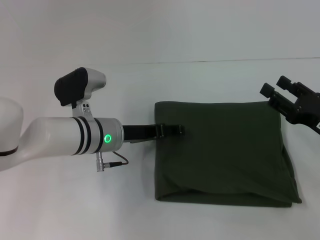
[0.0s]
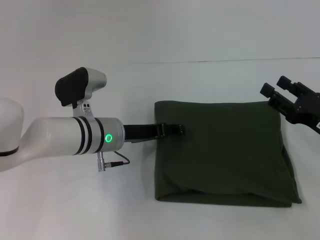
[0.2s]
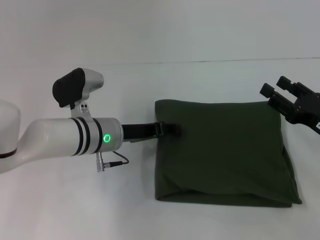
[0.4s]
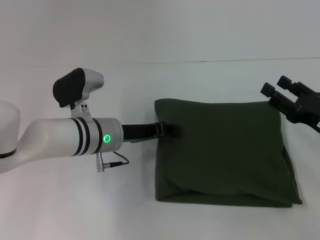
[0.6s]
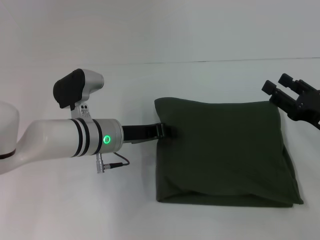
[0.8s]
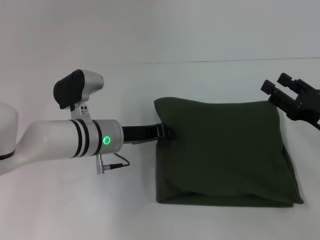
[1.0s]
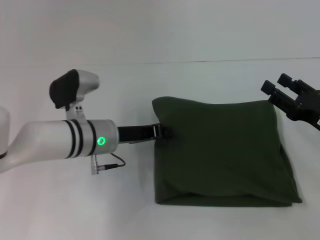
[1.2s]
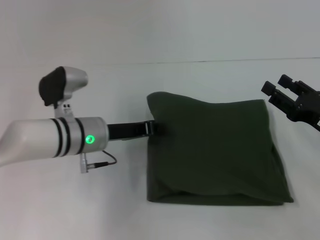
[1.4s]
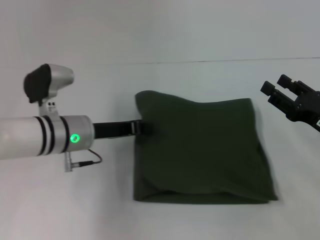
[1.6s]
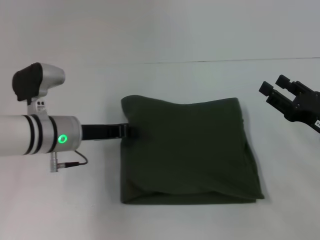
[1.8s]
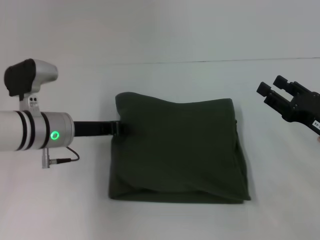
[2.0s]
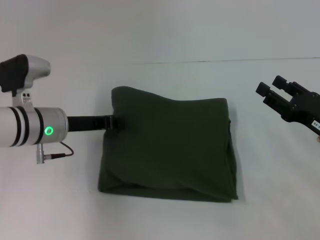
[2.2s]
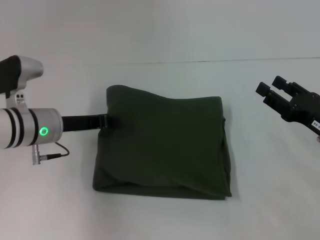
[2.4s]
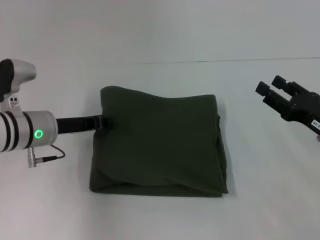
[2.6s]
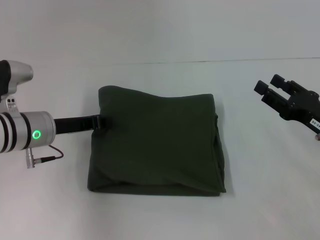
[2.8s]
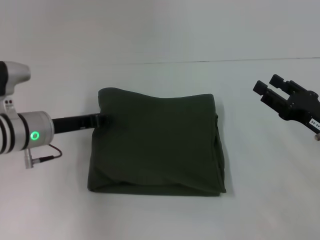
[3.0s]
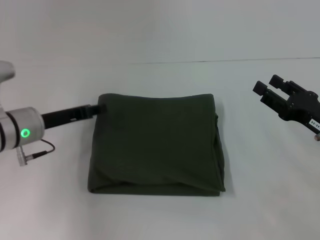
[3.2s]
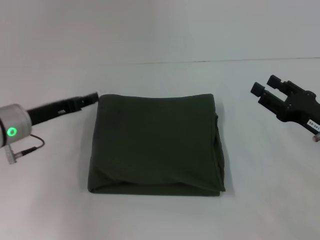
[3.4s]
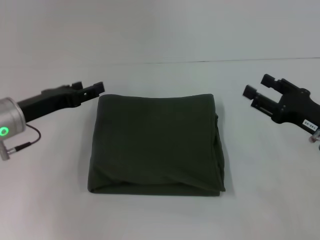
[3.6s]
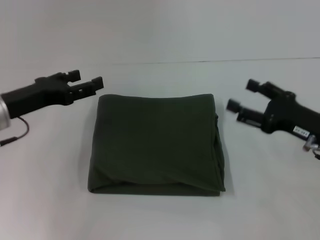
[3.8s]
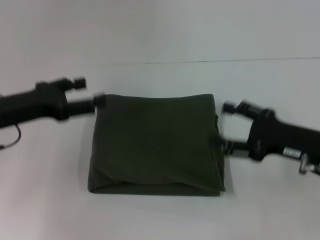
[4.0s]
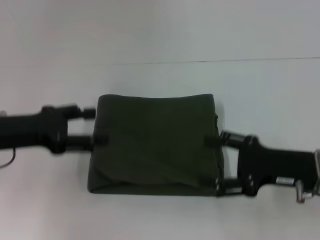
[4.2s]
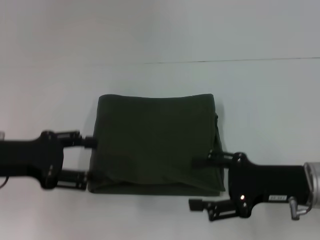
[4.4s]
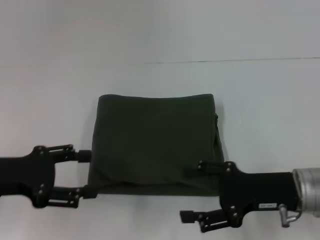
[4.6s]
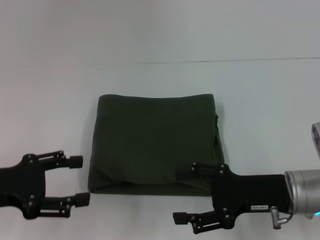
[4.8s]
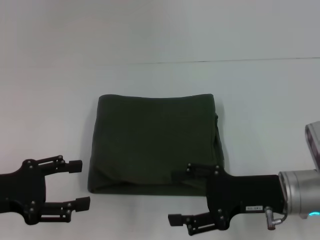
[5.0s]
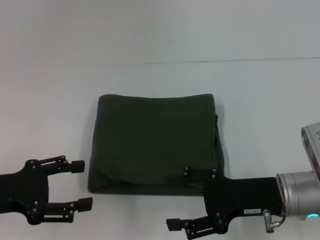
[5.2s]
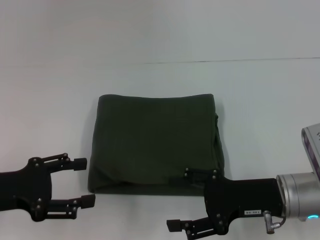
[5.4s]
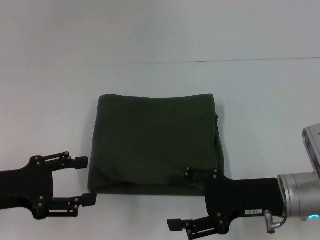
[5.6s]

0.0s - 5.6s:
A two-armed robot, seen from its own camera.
0.0s - 1.4s: The left gripper closes its fingers.
1.4s - 2.8s: The left gripper moves to the left, about 10 cm.
2.8s - 4.2s: The right gripper shifts by roughly 5 cm. Meanwhile the left gripper heads upward, backward and to the left, covering approximately 10 cm, and opens.
4.2s - 5.6s: The left gripper heads backward, covering roughly 5 cm.

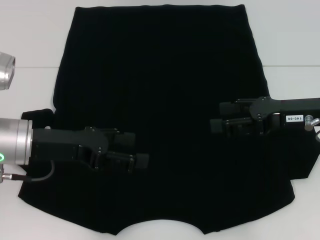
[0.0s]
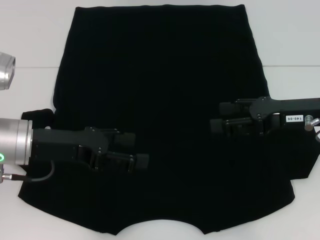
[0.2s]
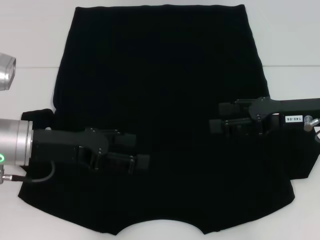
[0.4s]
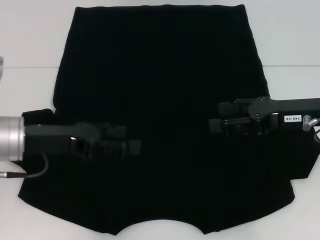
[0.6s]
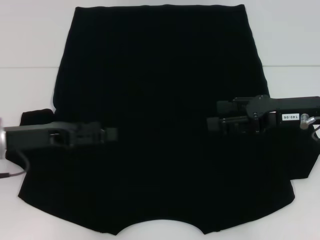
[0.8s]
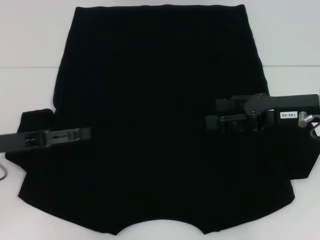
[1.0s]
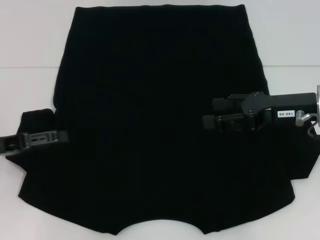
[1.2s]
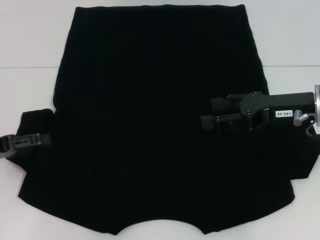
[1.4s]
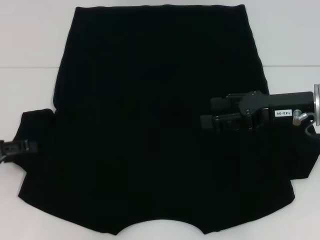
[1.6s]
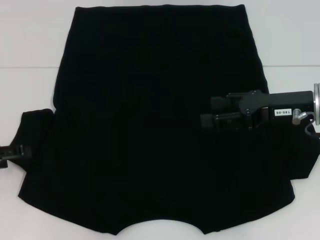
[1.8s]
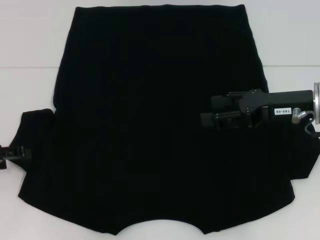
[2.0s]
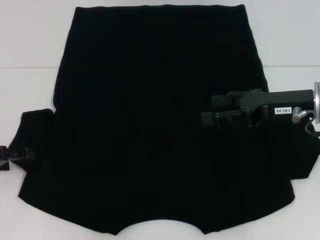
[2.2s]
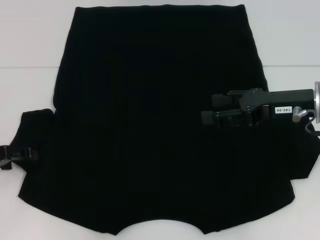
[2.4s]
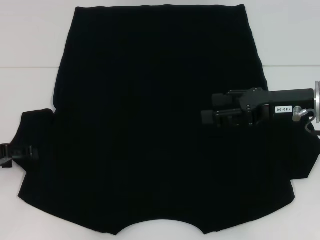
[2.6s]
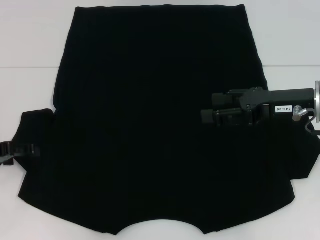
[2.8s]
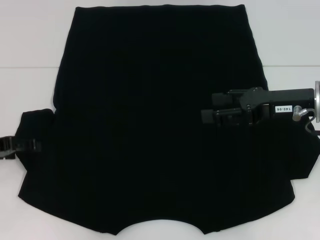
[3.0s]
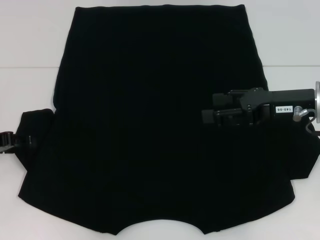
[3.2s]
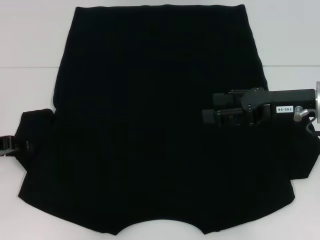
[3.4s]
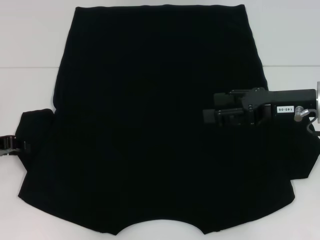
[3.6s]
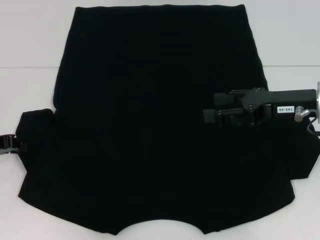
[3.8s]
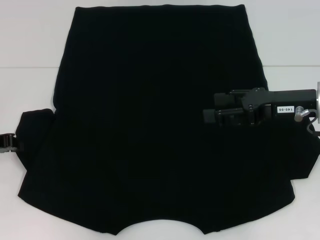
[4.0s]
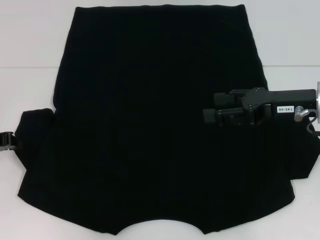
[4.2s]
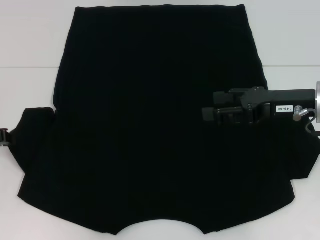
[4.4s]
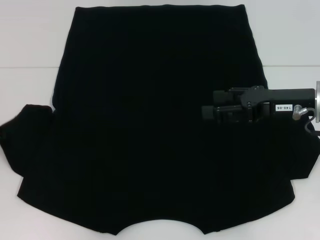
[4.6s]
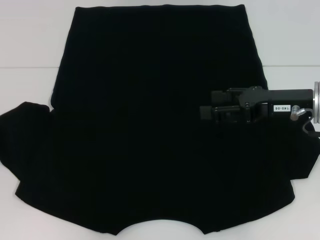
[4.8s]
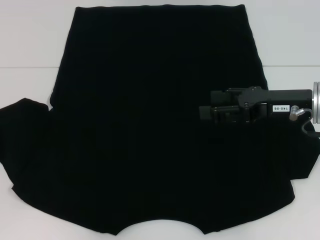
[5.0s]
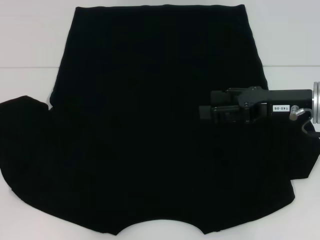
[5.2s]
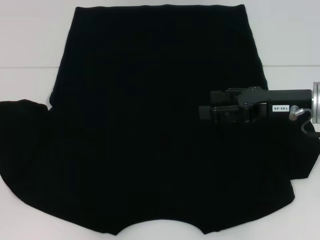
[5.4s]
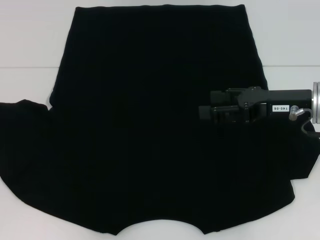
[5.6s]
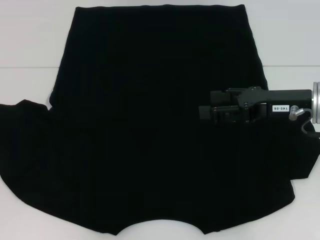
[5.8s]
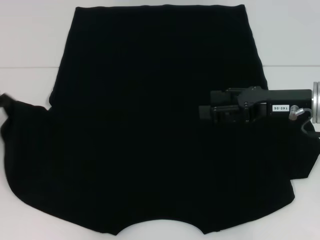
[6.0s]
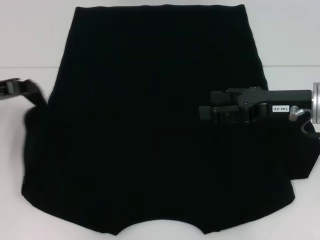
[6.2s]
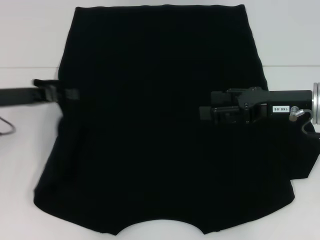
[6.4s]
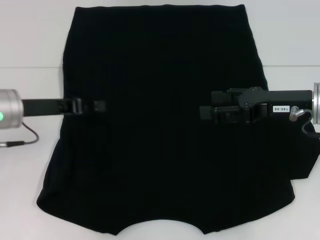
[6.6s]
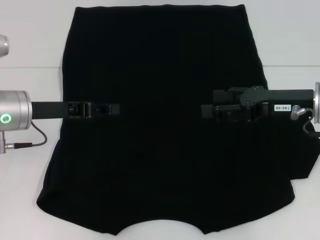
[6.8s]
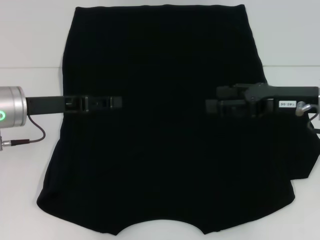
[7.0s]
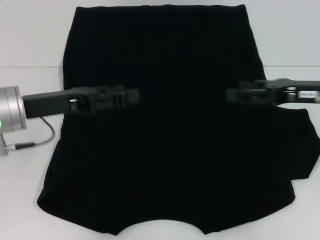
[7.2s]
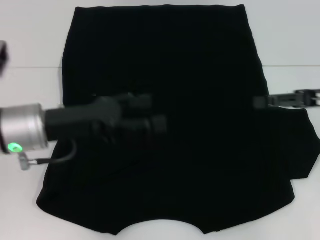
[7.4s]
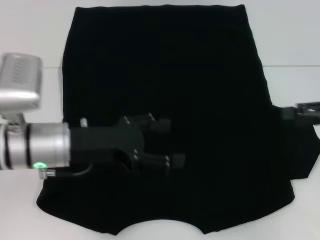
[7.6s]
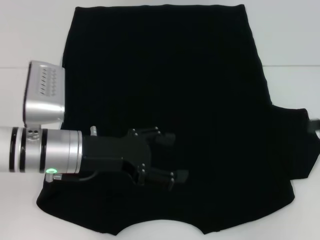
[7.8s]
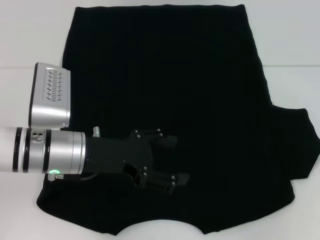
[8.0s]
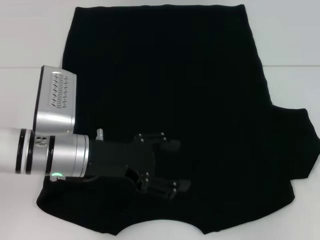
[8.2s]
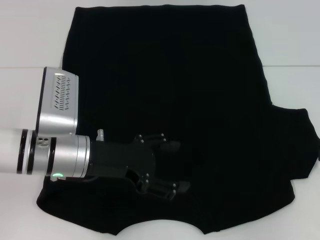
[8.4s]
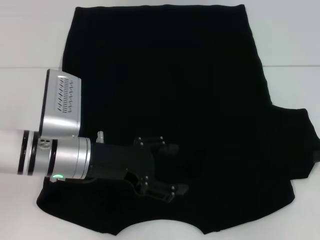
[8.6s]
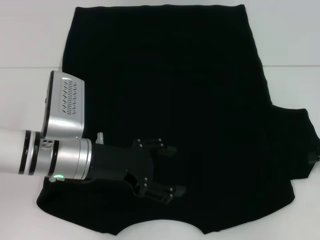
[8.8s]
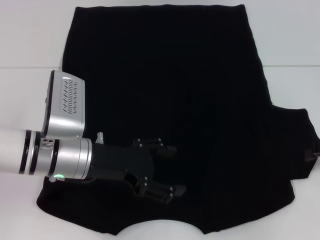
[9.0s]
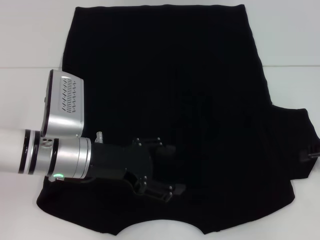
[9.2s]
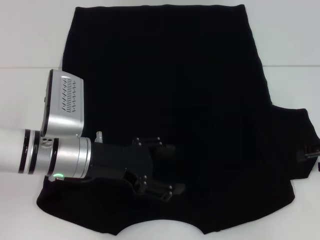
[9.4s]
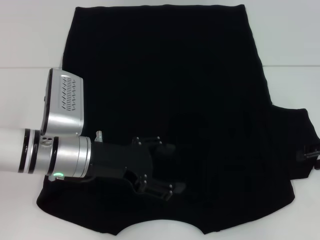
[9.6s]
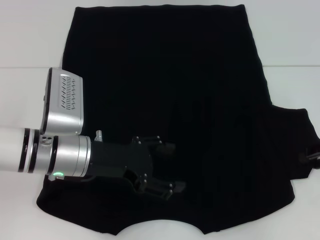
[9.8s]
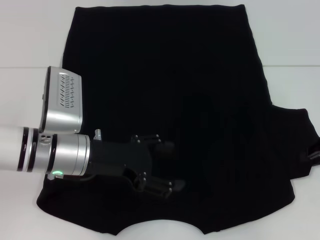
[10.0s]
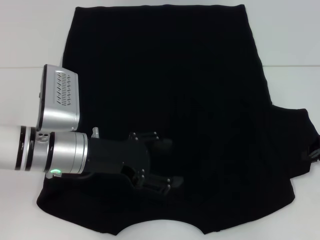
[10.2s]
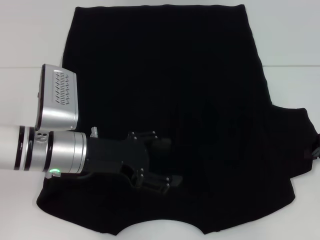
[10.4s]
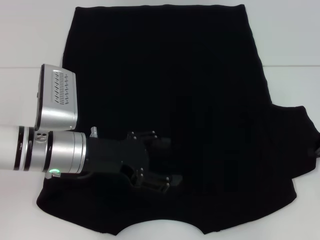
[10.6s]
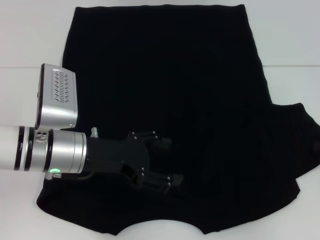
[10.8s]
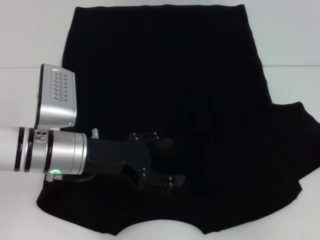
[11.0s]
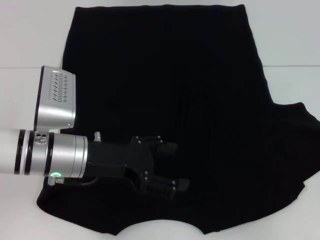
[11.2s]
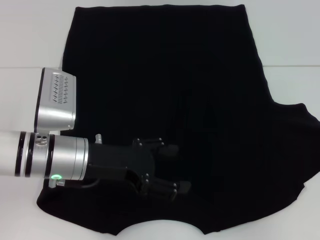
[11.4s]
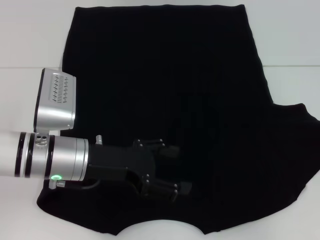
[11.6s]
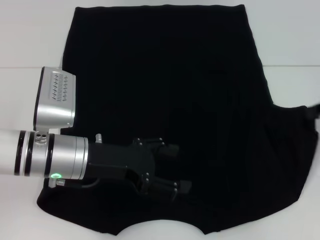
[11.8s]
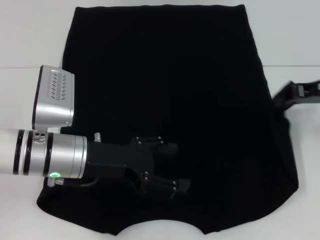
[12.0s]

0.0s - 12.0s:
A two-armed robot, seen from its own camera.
Step, 0.0s - 7.0s: Fold the bottom left sleeve with your left hand.
0.0s - 1.6s: The left gripper is displaced to the left by about 15 cm.
1.6s - 3.0s: There are only small adjustments of the grippers.
3.0s - 4.4s: The left gripper closes its fingers.
4.4s - 6.0s: The grippers move only a little.
6.0s - 7.6s: The left gripper moves to the right, approximately 15 cm, and opens up. The right gripper heads to the right, covering roughly 10 cm.
7.6s - 9.0s: The right gripper moves approximately 5 cm.
9.0s - 10.4s: The right gripper closes its fingers.
10.4s - 12.0s: The right gripper goes some 10 cm upward and to the left.

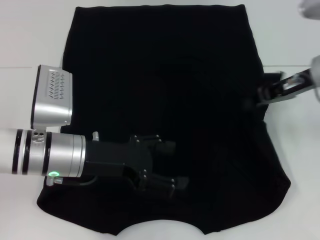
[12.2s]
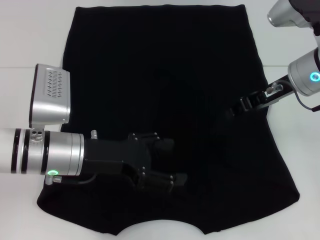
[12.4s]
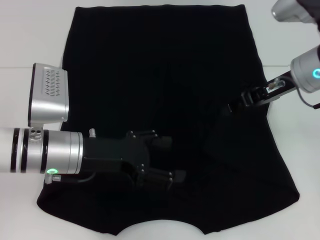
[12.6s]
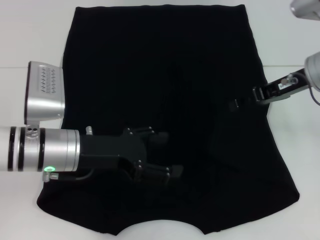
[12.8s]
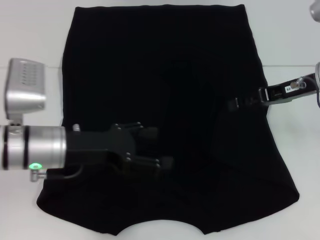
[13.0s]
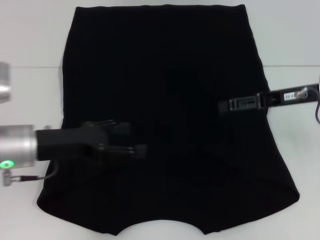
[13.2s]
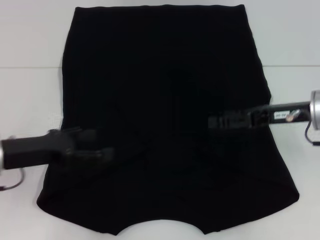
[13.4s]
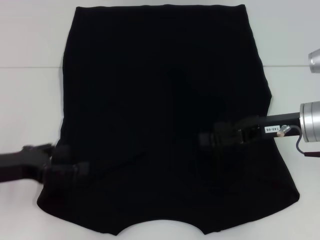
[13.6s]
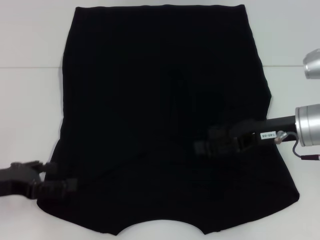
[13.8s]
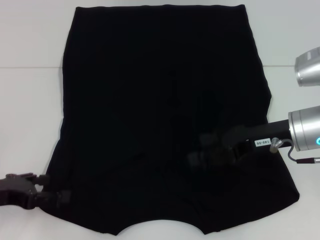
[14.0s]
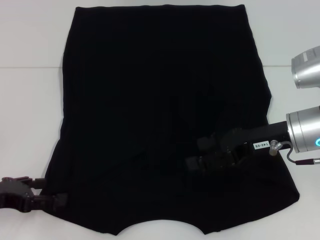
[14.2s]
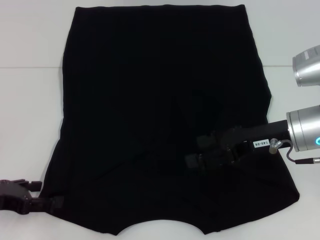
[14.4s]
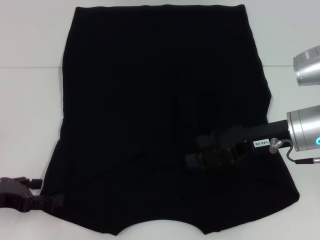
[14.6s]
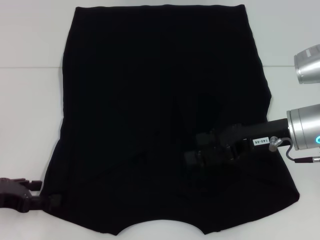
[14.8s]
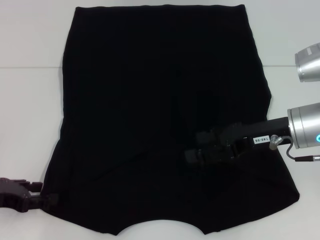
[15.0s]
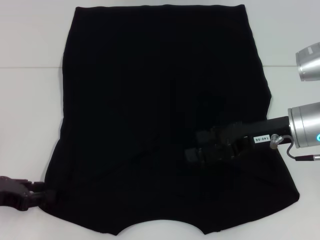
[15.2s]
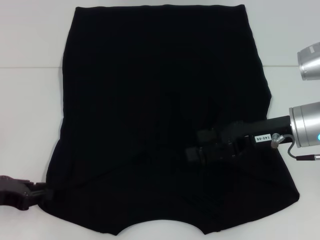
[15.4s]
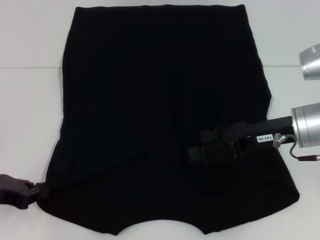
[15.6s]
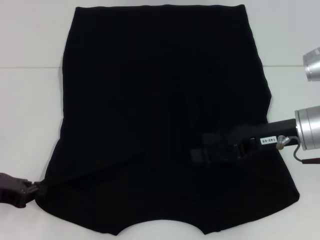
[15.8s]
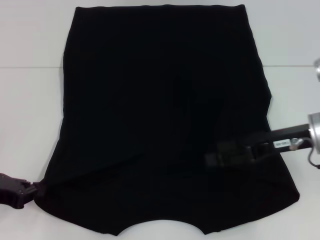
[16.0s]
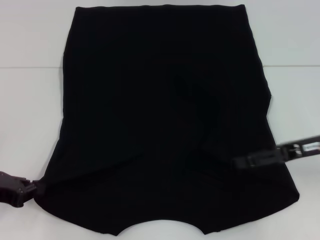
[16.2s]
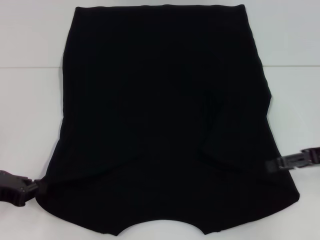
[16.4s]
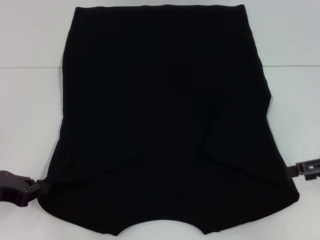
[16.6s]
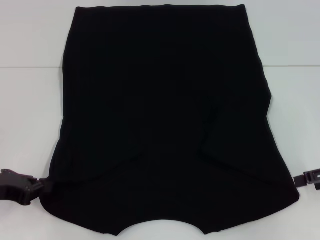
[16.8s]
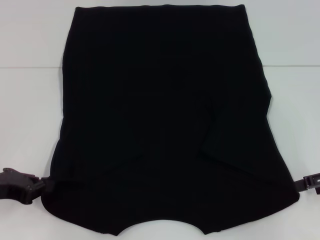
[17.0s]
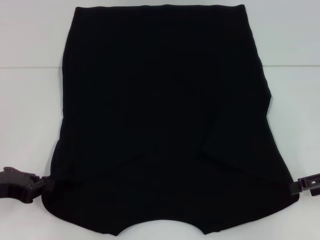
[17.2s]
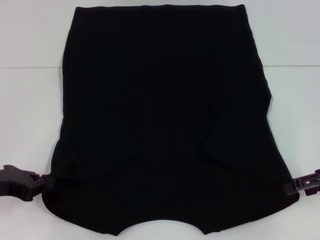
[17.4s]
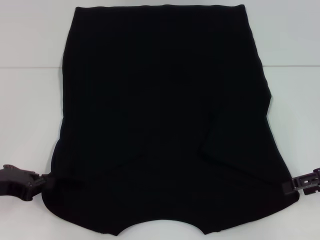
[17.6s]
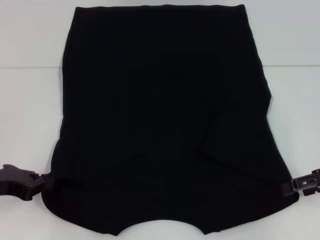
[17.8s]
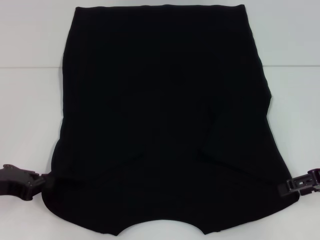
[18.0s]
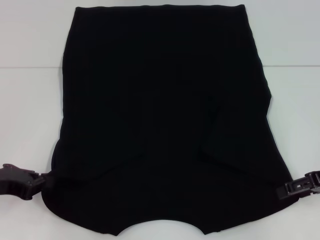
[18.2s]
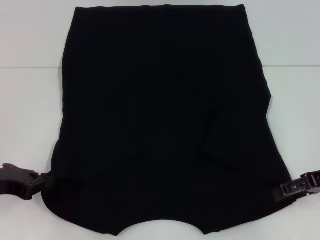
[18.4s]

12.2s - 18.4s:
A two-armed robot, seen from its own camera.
Step, 12.6s - 15.8s: Grab the bottom left corner with your left hand.
12.2s - 13.8s: The right gripper heads backward and downward, covering about 10 cm, and opens its fingers. Meanwhile the left gripper moves to the left, some 15 cm.
13.8s - 15.4s: The left gripper closes.
15.4s - 16.8s: The right gripper shifts about 15 cm to the right, while the left gripper closes.
16.8s - 18.4s: The grippers stay close to where they were, moving slightly.
